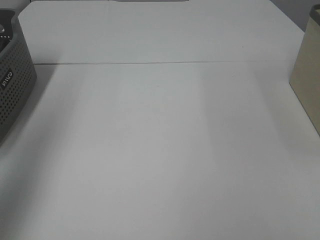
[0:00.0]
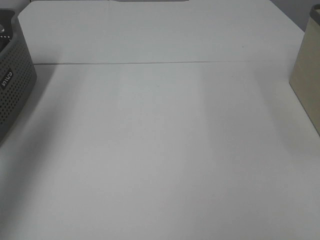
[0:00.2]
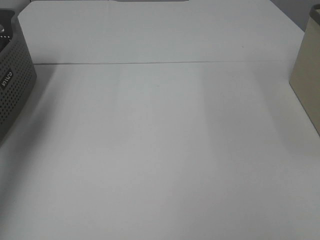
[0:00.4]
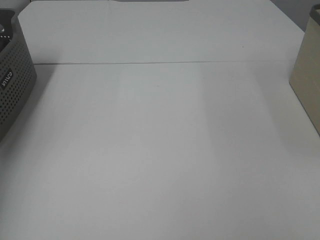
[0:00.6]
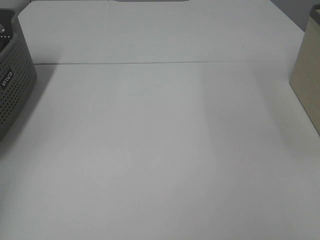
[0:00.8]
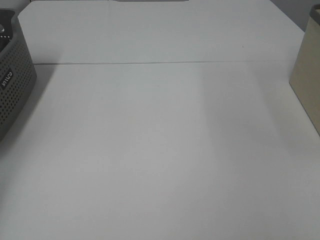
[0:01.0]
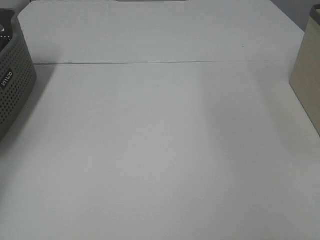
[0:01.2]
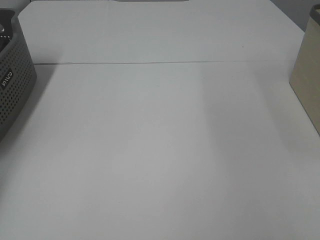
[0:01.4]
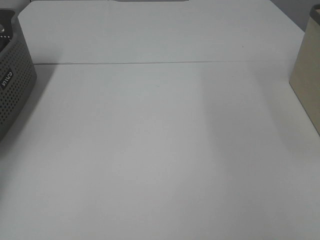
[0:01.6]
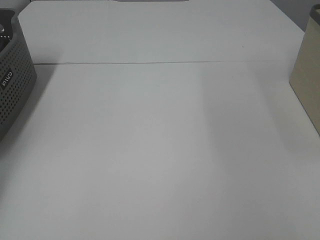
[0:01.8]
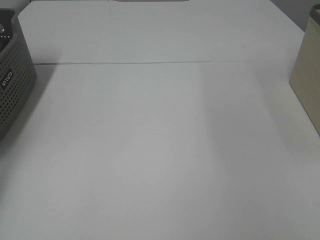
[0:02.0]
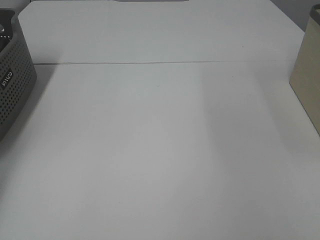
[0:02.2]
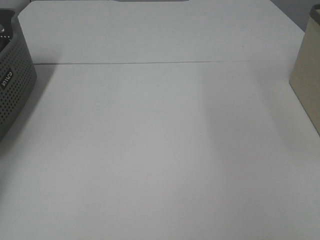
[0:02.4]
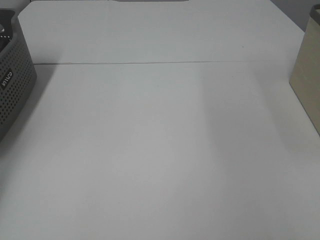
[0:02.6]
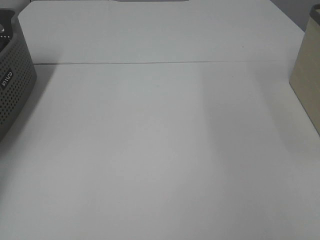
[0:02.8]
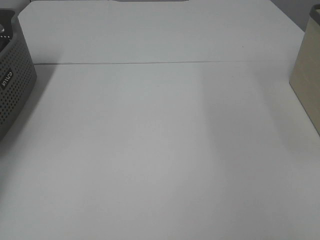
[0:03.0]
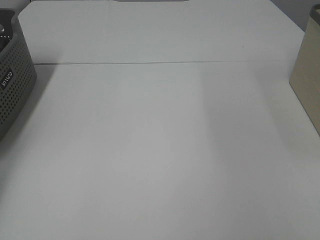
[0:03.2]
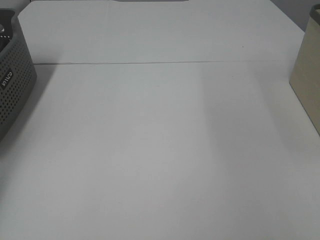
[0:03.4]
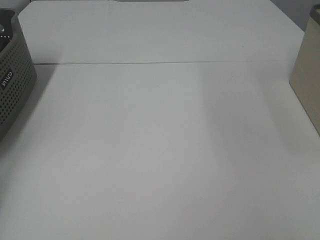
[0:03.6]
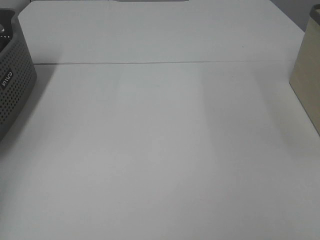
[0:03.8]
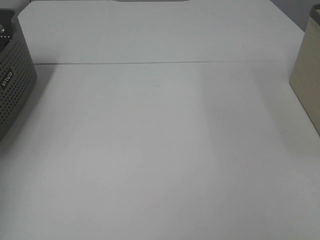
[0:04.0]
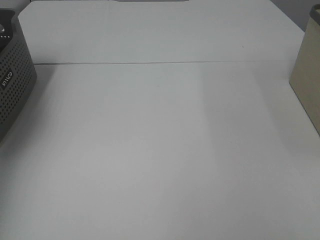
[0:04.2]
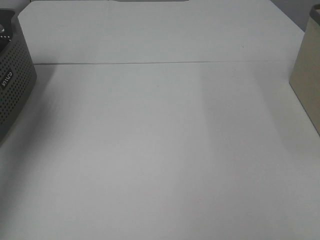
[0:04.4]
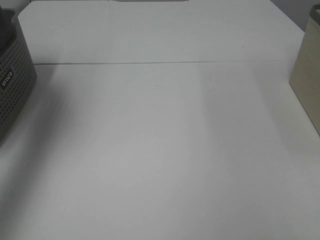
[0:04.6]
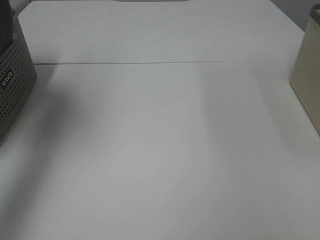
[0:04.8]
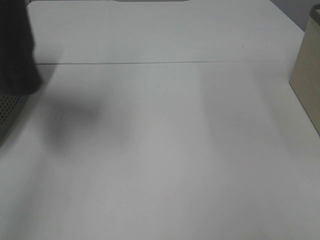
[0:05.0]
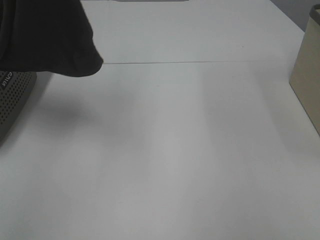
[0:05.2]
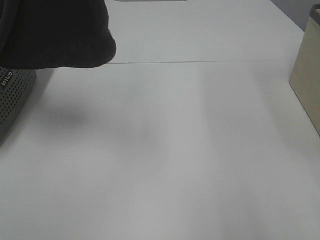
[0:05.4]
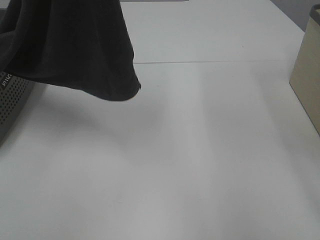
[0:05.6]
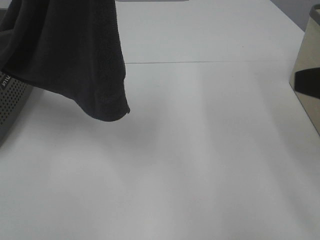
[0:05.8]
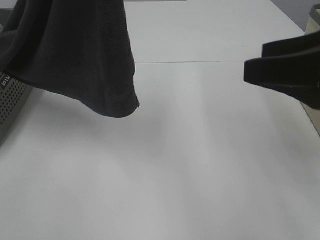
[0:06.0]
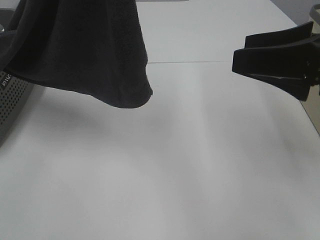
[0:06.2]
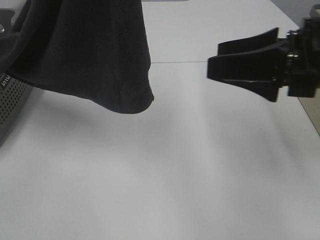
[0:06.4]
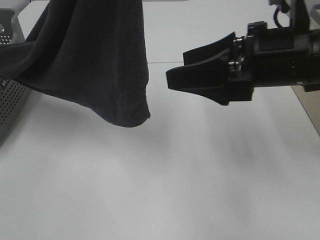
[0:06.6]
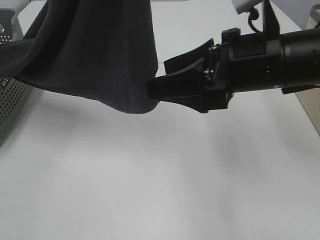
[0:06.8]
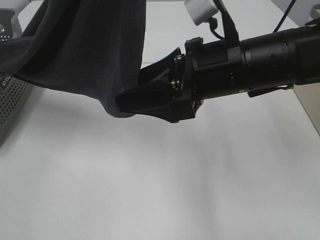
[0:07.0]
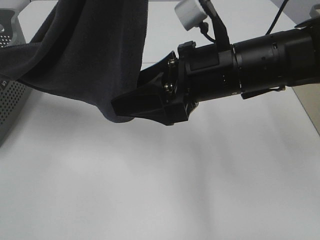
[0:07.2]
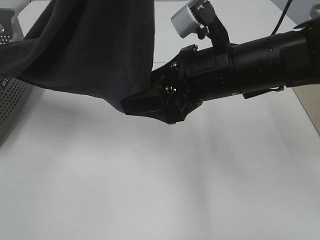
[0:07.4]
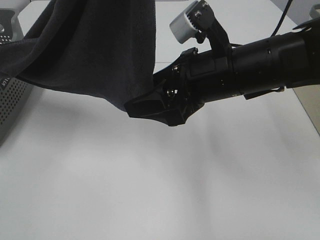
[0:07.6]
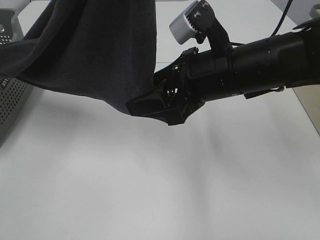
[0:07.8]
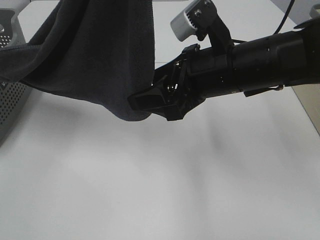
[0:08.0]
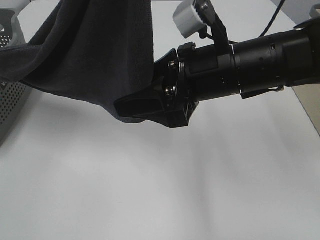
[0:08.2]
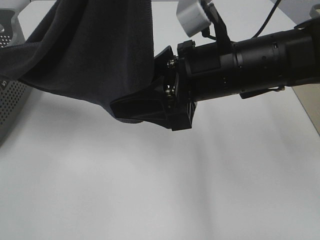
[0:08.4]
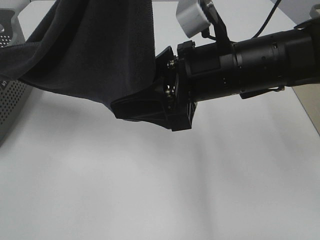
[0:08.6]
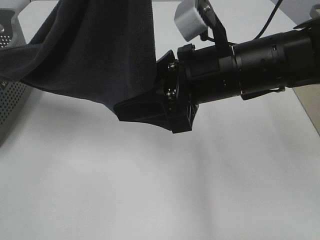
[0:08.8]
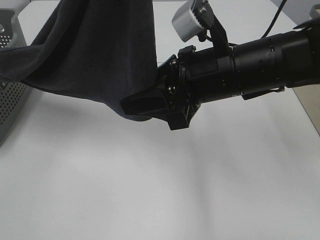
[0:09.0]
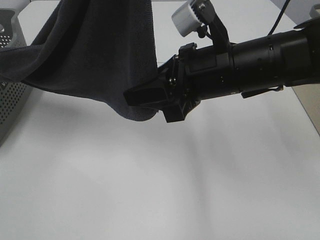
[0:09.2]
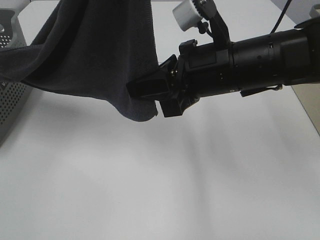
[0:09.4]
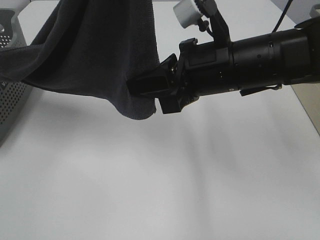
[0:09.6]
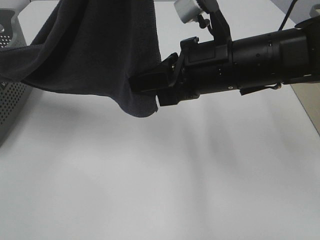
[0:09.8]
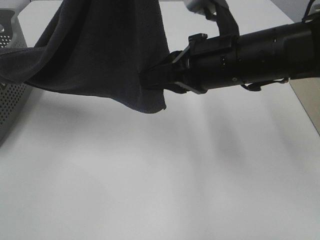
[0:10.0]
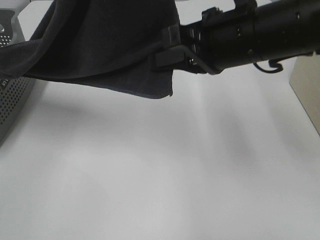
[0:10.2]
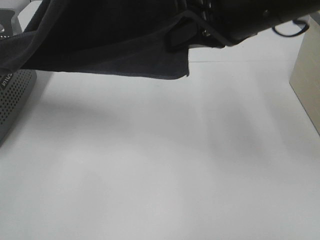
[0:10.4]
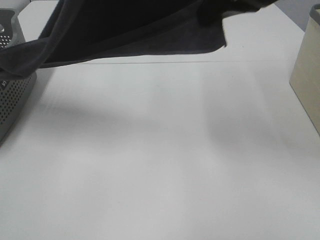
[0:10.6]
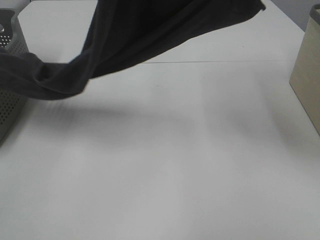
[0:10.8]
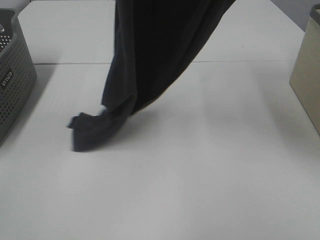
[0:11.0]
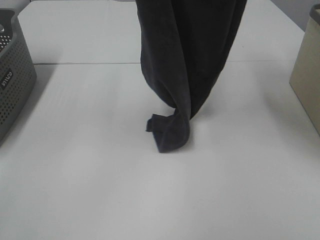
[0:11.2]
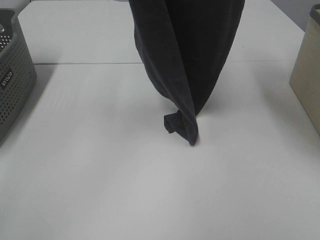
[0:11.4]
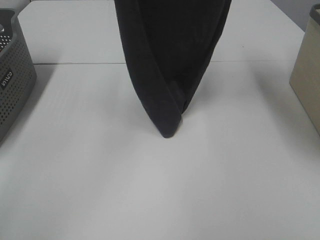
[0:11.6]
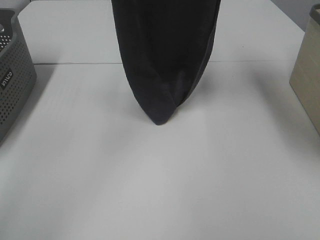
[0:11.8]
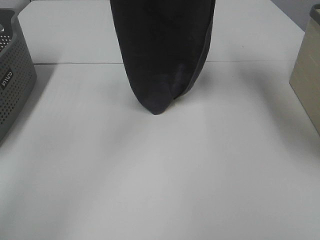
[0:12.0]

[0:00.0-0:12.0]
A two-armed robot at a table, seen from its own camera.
Task of the whole recording: Remove the towel and place it.
Step, 4.6 to 10.4 s: Right hand: grab a corner of the grey towel and straighten it.
0.0 to 1.6 s: The left gripper moves forward, downward and to the left, approximately 35 cm.
3.0 to 4.4 s: The left gripper moves upward, to the right and backward, about 30 cm.
4.4 to 6.0 s: The right gripper is displaced forward by about 20 cm, and opens, while the left gripper moves to the right and backward, approximately 20 cm.
6.0 to 7.6 s: The right gripper shifts approximately 15 cm to the left, forward and downward.
7.6 to 9.0 s: There are only small adjustments of the grippers.
9.0 to 10.4 s: The right gripper travels upward by about 10 cm, and closes.
10.4 to 12.0 s: The left gripper shifts about 15 cm forward. Meanwhile the right gripper heads upward and forward, covering about 20 cm.

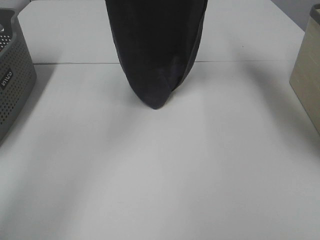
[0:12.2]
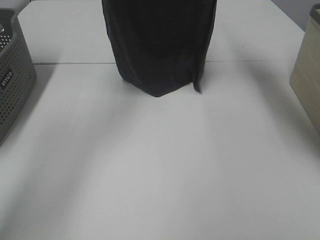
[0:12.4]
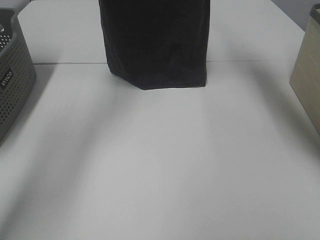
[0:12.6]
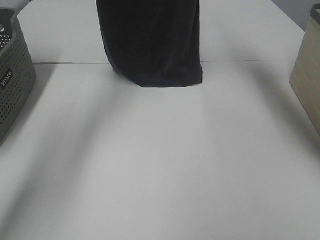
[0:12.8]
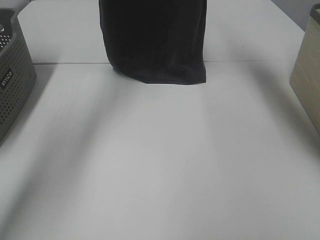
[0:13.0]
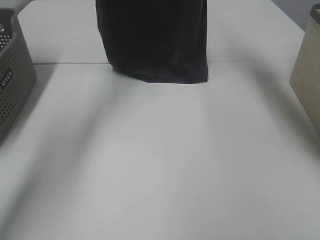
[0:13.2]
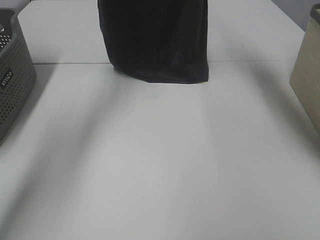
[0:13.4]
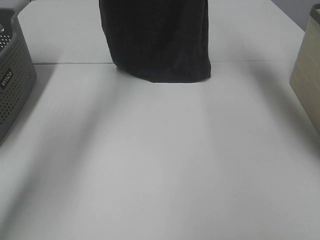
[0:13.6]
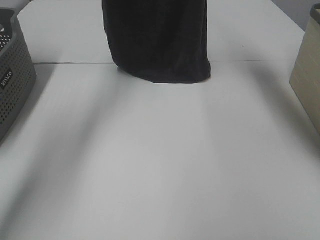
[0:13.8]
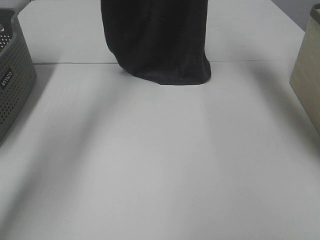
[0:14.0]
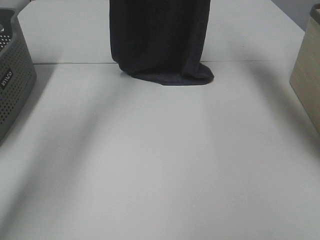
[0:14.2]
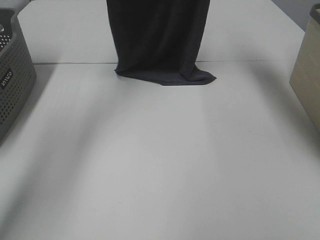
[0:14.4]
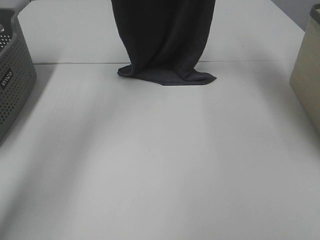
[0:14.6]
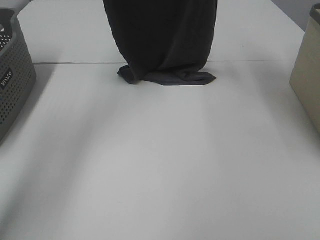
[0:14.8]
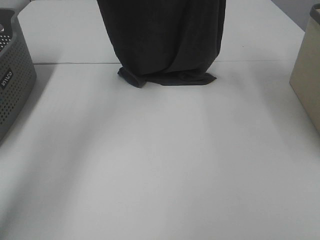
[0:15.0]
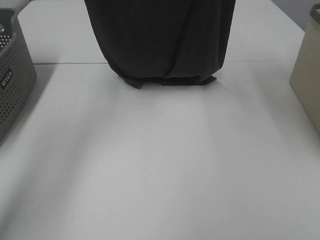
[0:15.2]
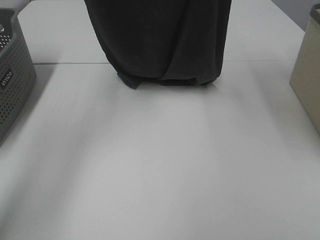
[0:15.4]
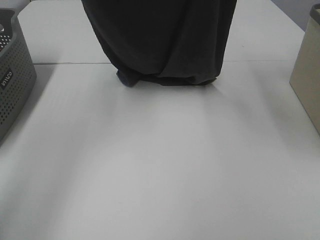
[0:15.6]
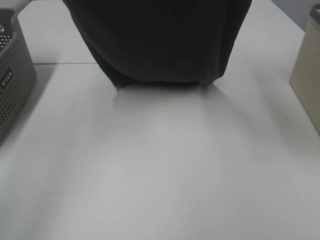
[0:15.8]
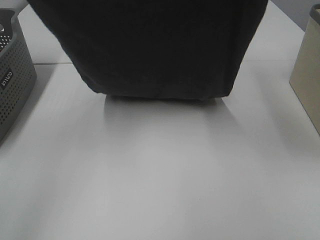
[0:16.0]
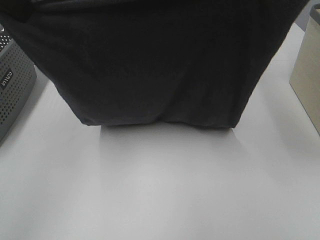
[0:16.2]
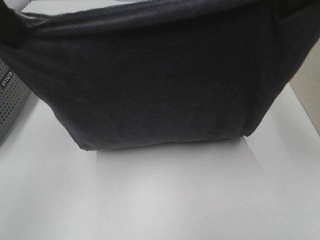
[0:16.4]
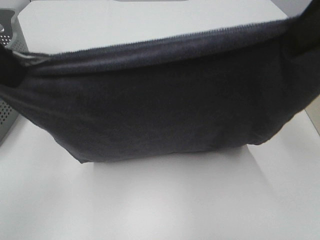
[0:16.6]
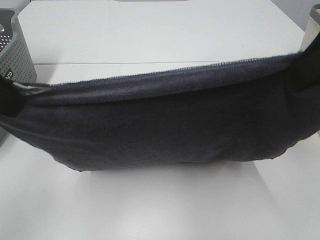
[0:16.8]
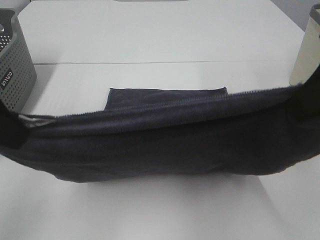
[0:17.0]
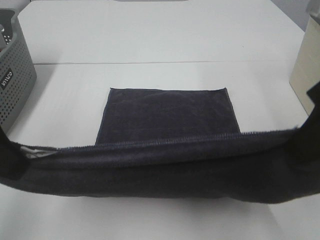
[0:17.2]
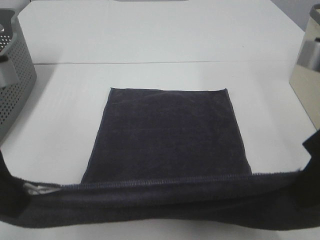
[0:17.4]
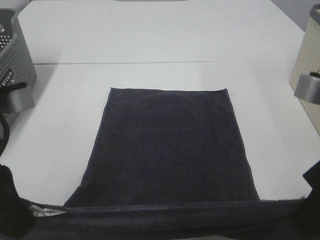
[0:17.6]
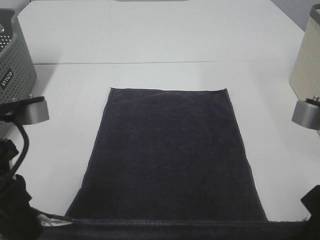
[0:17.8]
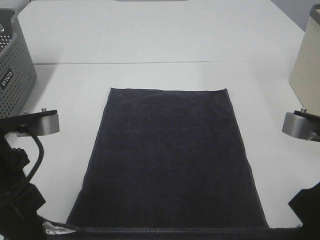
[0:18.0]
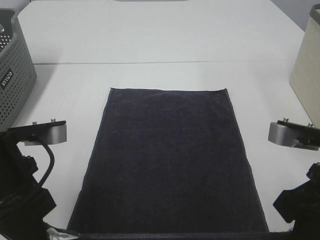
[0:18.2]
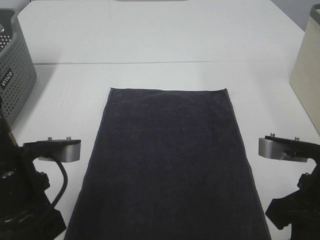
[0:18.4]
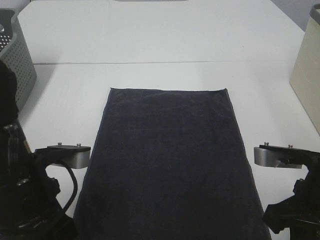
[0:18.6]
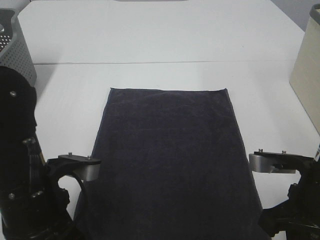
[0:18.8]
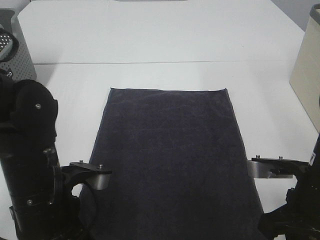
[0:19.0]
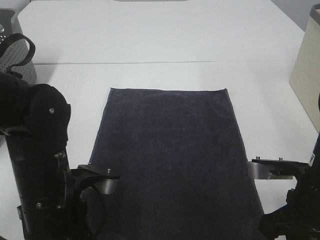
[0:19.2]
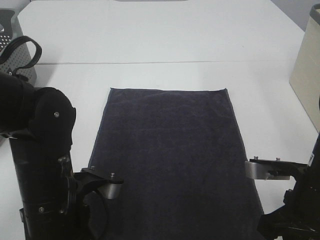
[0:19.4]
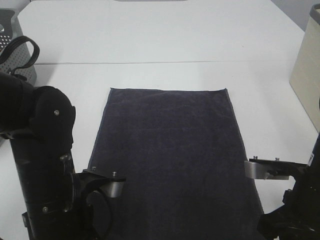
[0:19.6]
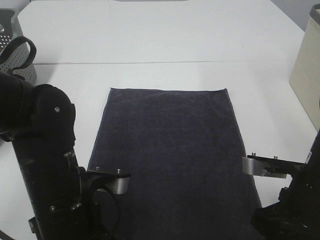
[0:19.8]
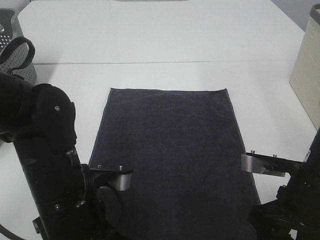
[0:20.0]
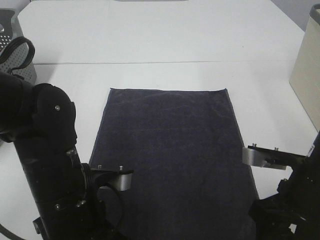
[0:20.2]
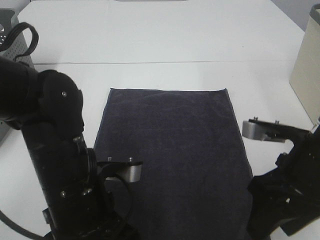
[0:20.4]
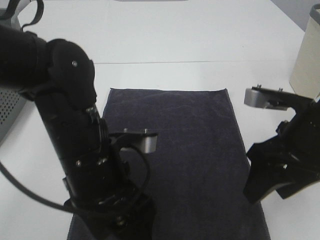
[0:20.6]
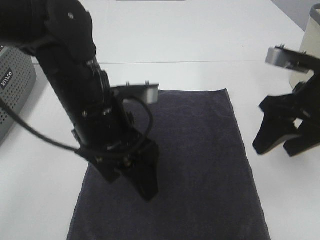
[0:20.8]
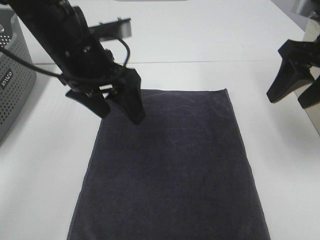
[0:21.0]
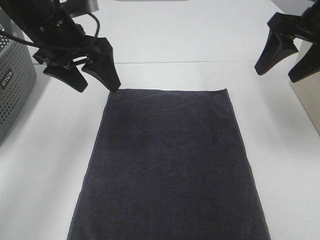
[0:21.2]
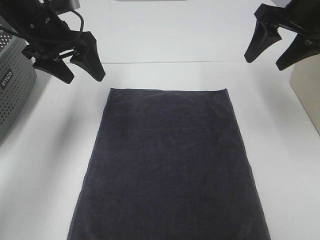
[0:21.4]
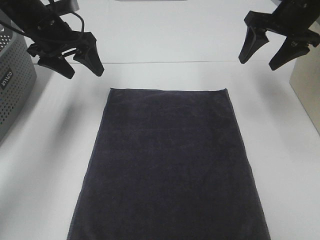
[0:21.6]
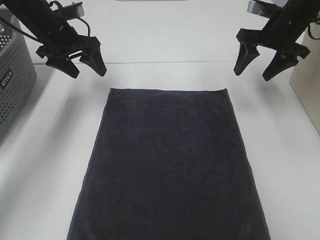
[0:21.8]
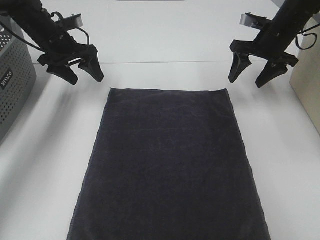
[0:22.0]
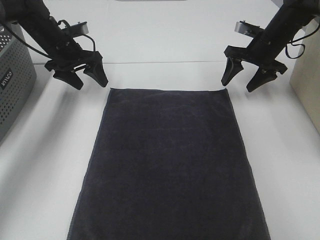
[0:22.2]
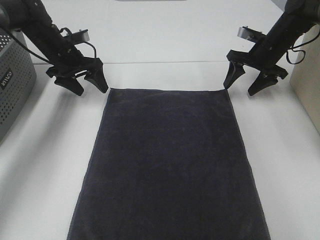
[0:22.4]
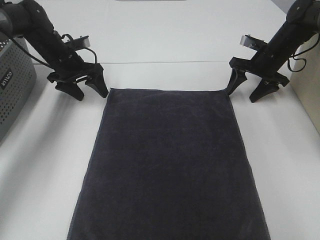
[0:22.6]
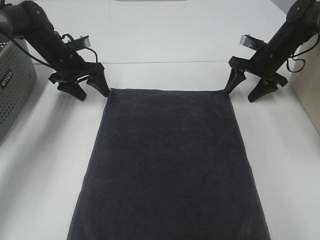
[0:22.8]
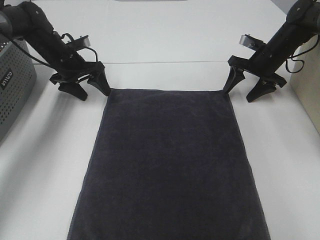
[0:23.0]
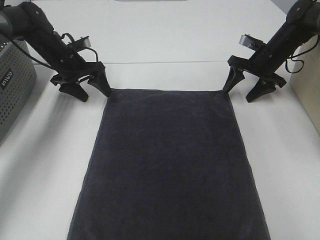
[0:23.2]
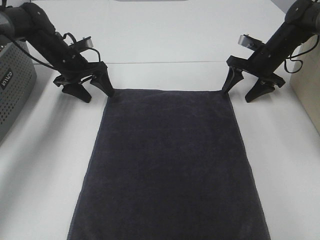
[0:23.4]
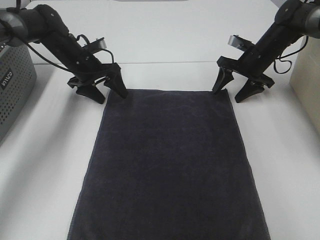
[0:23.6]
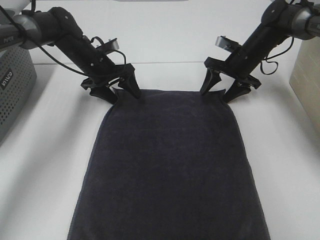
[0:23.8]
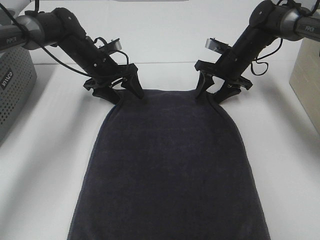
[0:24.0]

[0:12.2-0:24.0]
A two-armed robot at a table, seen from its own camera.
Task of the whole recording: Remove the towel and place it.
Step, 12.2 to 15.4 s: Left hand: spread the grey towel flat on the table.
Step, 12.2 to 15.4 s: Right hand: spread the grey towel flat on the table.
Step, 15.6 to 22.0 s: Left hand:adjust the gray towel.
Step, 15.6 to 22.0 s: Right hand:adjust the gray towel.
12.2 to 13.6 s: The left gripper moves forward, roughly 10 cm.
13.6 to 15.2 s: The two grippers go approximately 10 cm backward.
15.2 to 16.6 s: The two grippers go some 20 cm backward.
16.6 to 18.2 s: Both grippers move downward, approximately 15 cm.
18.2 to 19.6 s: The left gripper heads downward and to the right, covering some 10 cm, while the right gripper goes some 5 cm downward.
19.6 to 21.0 s: The right gripper goes about 20 cm upward and forward, and opens its fingers; the left gripper goes roughly 20 cm forward and upward, and opens.
21.0 to 22.6 s: The left gripper heads forward, downward and to the left, covering some 25 cm. The right gripper shifts about 25 cm forward and downward.
22.6 to 24.0 s: The left gripper heads to the right, covering about 10 cm. Meanwhile the right gripper goes approximately 10 cm to the left.
